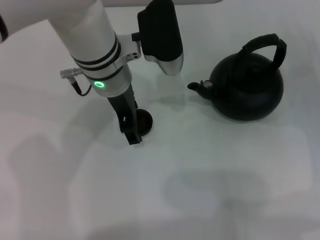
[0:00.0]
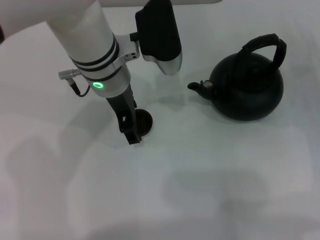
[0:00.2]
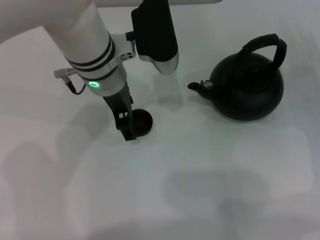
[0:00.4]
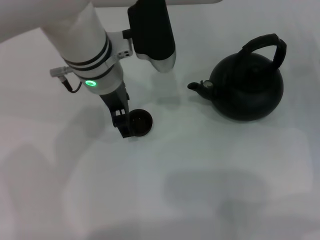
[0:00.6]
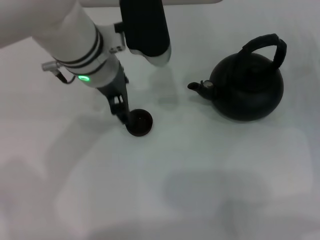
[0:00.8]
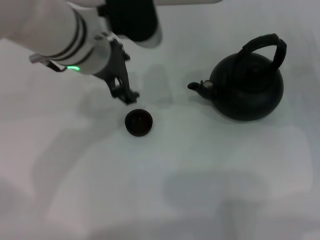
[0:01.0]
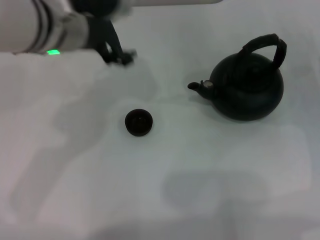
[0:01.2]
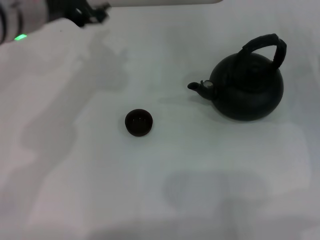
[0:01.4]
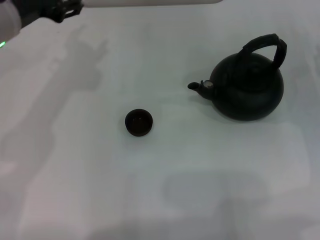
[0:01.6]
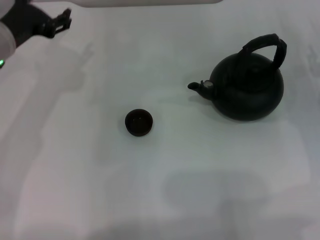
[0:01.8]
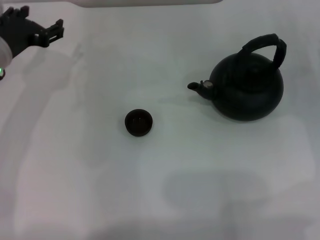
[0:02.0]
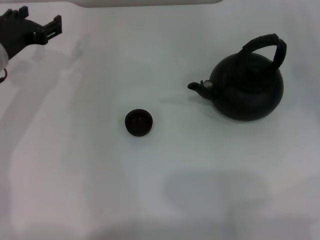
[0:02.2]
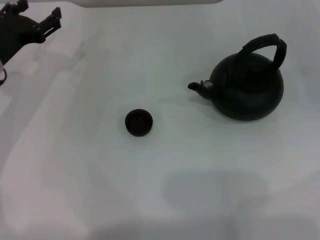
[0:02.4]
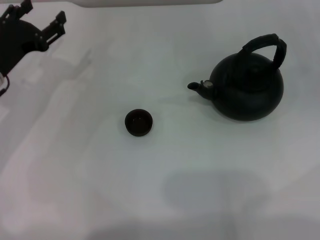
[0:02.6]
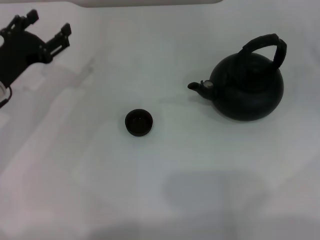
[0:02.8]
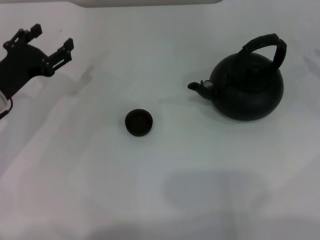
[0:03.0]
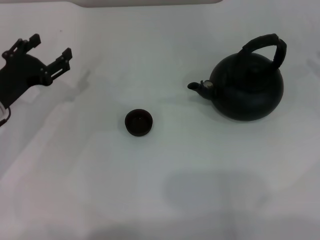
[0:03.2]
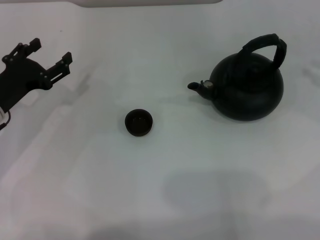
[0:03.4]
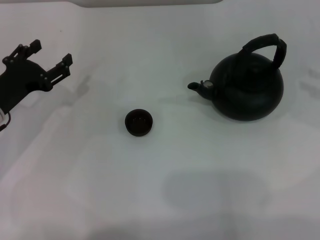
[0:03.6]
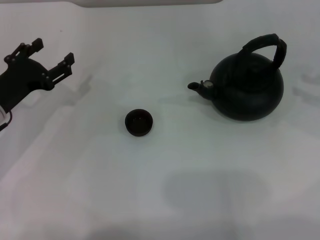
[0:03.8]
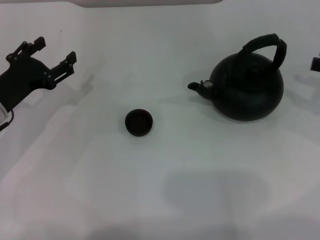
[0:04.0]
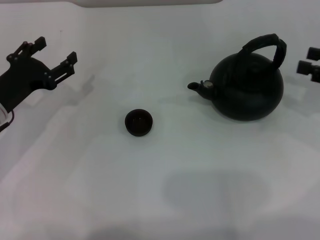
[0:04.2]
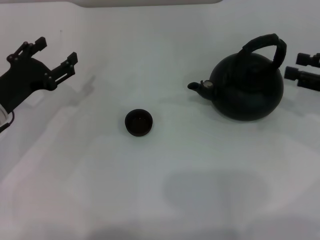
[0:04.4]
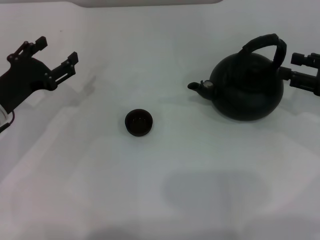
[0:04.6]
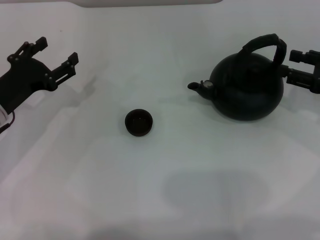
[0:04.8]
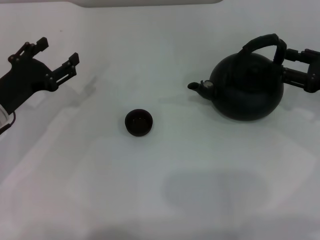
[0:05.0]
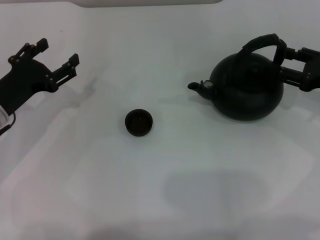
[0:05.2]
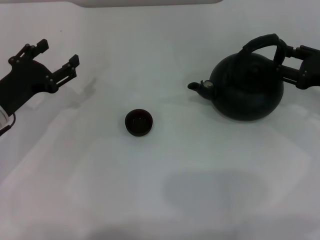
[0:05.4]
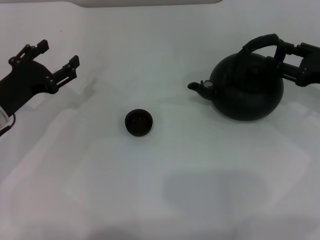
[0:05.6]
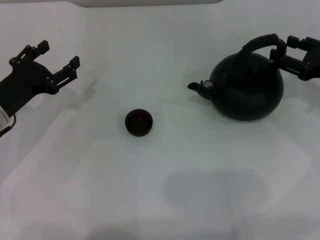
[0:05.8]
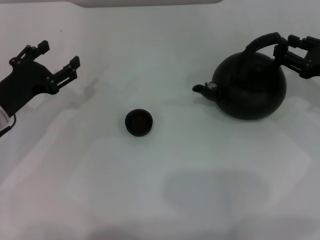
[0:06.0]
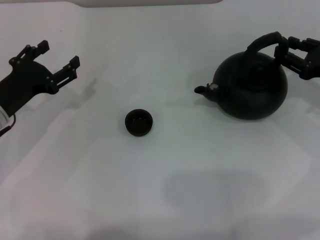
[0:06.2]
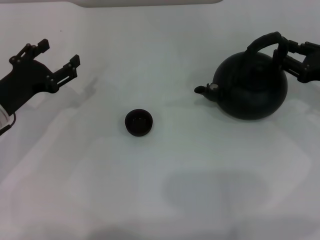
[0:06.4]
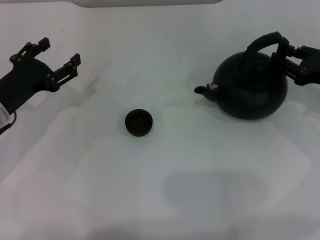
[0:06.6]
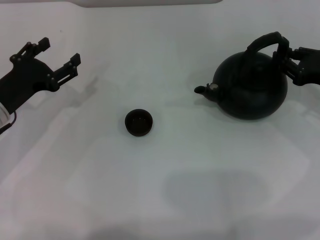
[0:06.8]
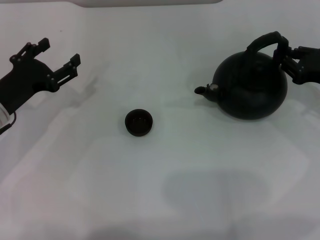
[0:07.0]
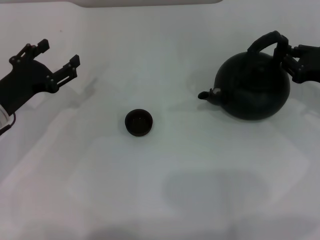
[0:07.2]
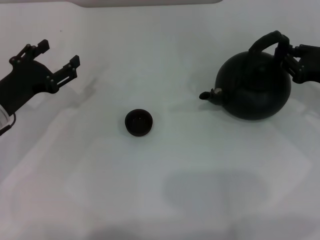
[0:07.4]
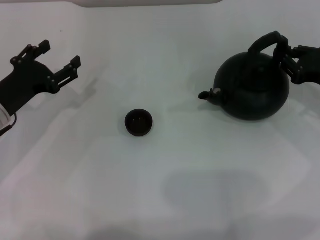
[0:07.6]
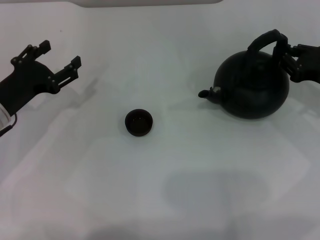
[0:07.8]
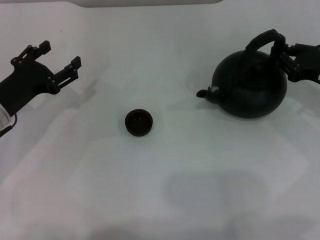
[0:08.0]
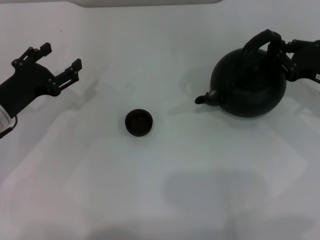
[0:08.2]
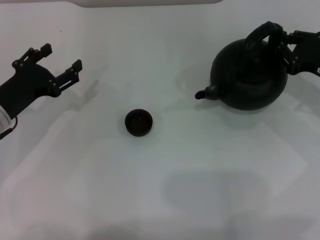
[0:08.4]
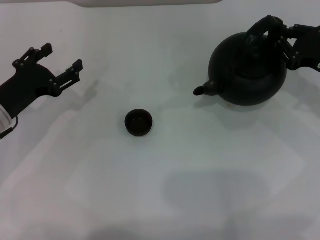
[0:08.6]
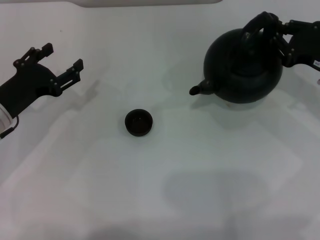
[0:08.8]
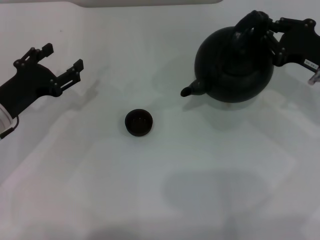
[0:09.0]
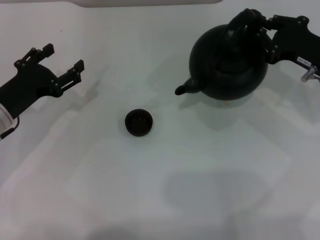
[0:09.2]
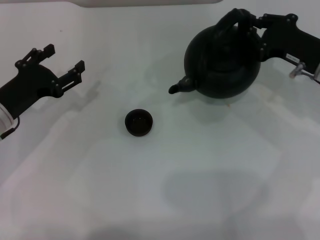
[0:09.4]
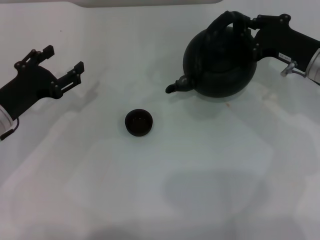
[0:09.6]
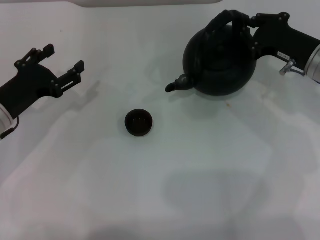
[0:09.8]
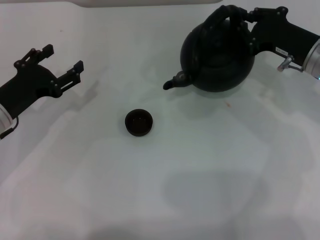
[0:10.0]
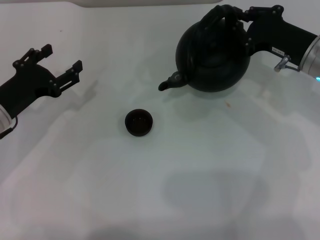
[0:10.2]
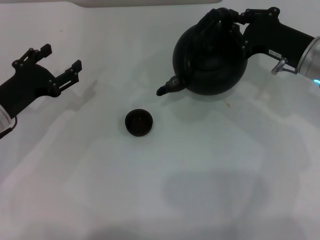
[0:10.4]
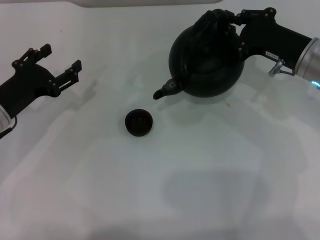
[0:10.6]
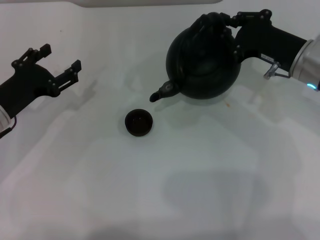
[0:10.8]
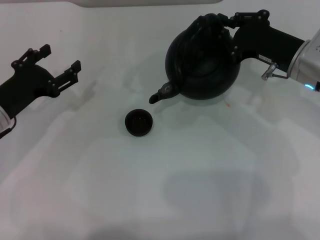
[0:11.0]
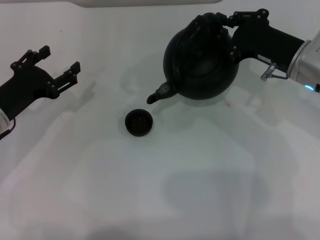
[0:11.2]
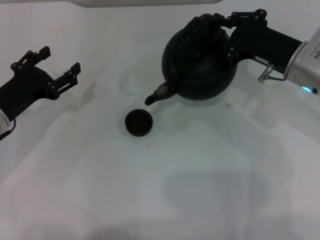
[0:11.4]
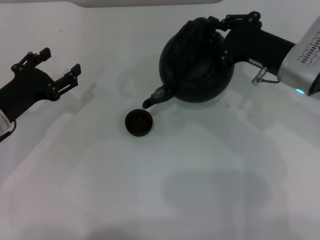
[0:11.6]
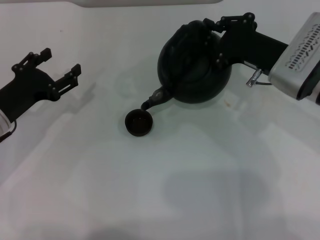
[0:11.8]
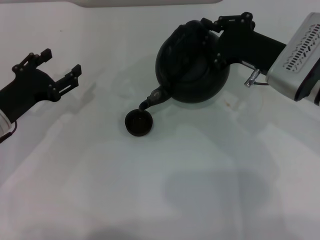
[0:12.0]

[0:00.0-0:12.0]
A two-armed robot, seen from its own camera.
Task of the whole recording: Grasp the handle of the teapot with one hand and pour tea into the teacup.
Step, 0:01.2 to 0:08.6: Pick up the teapot with the right gripper.
0:00.0 to 0:01.6: The left gripper goes some 15 cm to the left.
0:01.6 to 0:03.0: The left gripper is displaced downward and to the left by approximately 15 cm.
0:03.0 to 0:04.4: The right gripper changes place by approximately 5 cm.
0:04.4 to 0:06.0: The grippers stay close to where they were, moving slightly.
0:06.0 to 0:07.6: The right gripper closes.
0:07.6 to 0:09.0: The grippers stay close to where they were, moving slightly.
0:09.0 to 0:10.4: The right gripper changes place by some 5 cm.
0:10.4 to 0:12.0: The right gripper shifts by about 5 cm.

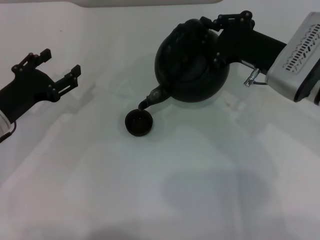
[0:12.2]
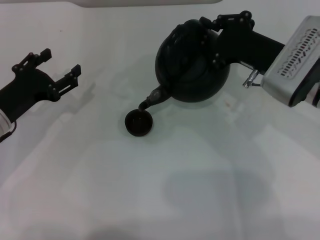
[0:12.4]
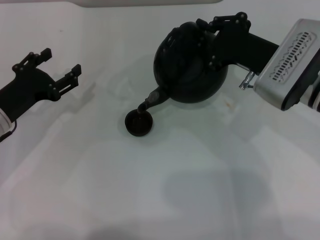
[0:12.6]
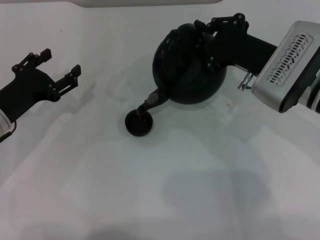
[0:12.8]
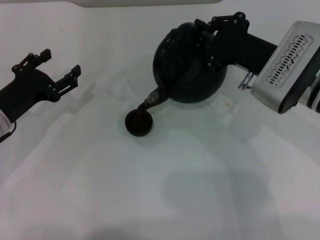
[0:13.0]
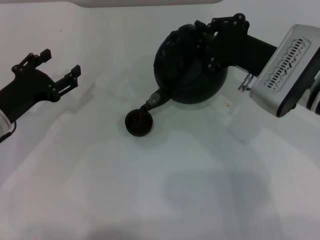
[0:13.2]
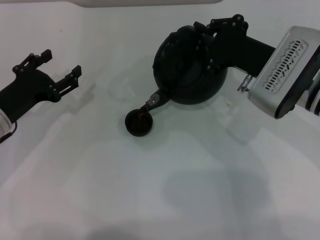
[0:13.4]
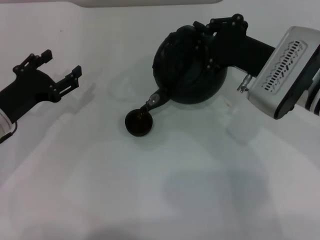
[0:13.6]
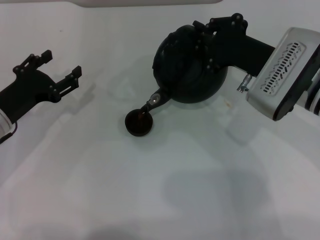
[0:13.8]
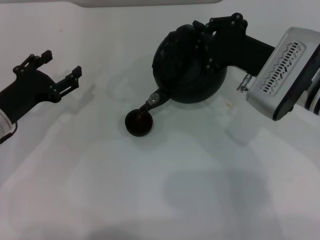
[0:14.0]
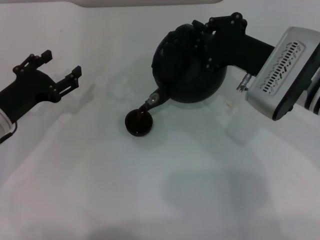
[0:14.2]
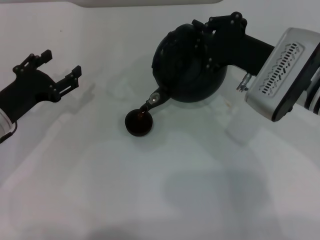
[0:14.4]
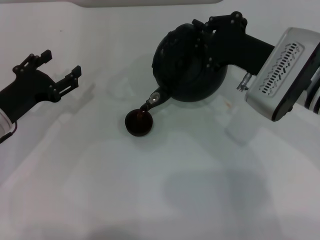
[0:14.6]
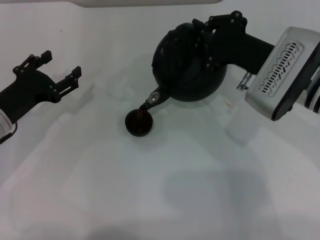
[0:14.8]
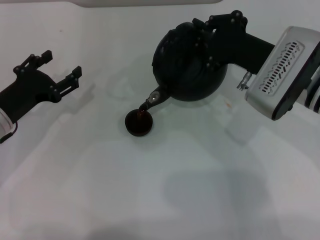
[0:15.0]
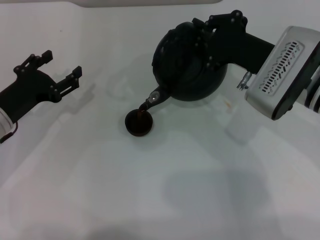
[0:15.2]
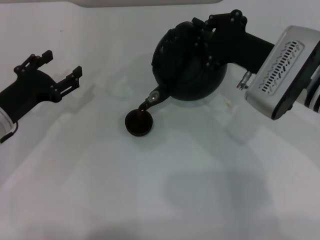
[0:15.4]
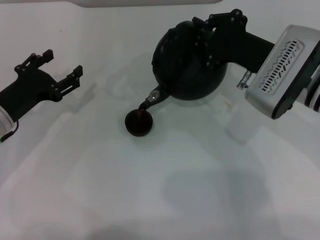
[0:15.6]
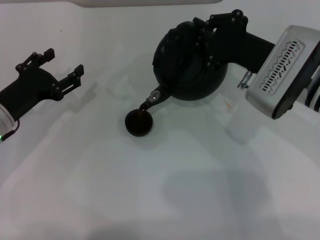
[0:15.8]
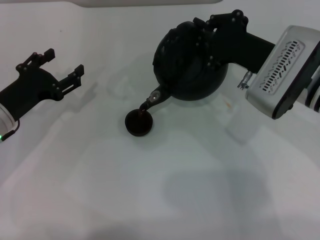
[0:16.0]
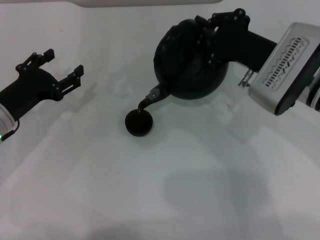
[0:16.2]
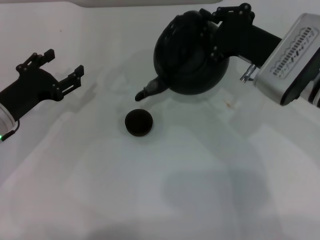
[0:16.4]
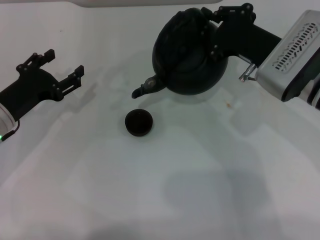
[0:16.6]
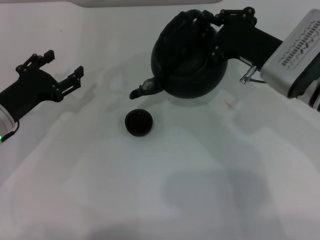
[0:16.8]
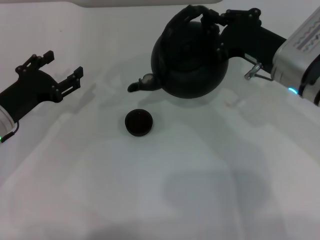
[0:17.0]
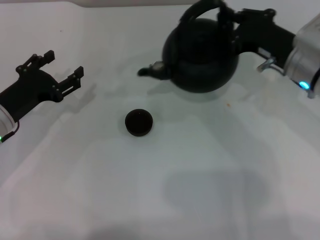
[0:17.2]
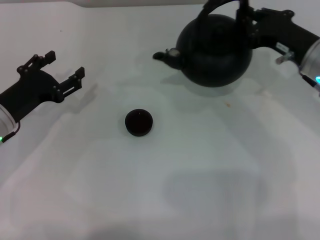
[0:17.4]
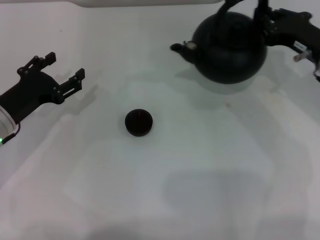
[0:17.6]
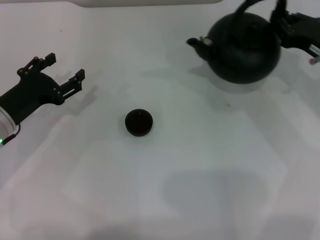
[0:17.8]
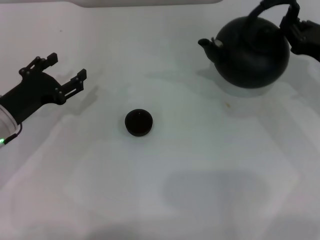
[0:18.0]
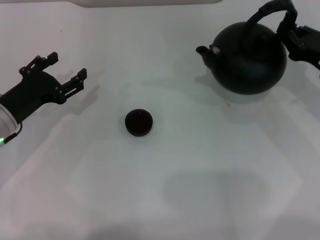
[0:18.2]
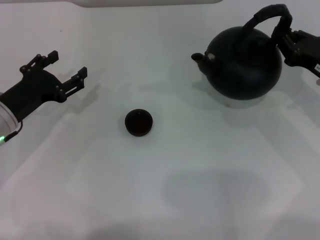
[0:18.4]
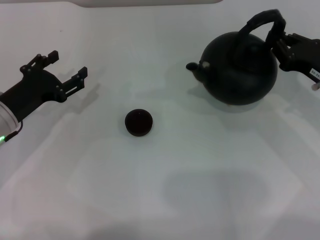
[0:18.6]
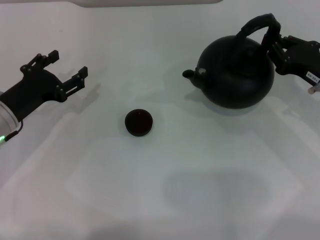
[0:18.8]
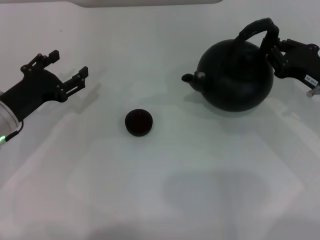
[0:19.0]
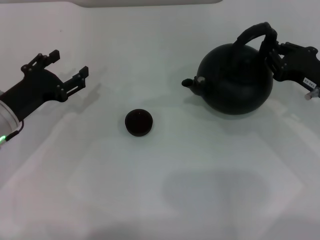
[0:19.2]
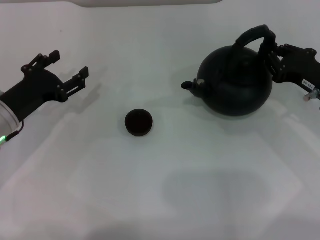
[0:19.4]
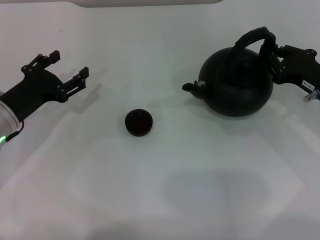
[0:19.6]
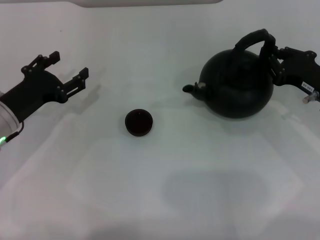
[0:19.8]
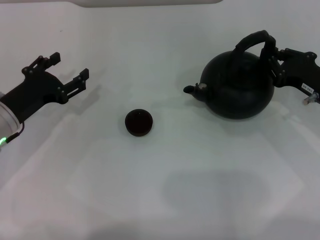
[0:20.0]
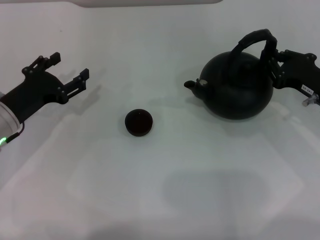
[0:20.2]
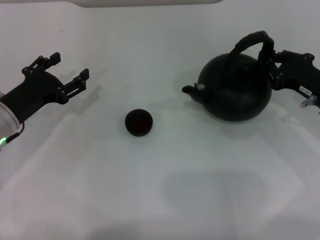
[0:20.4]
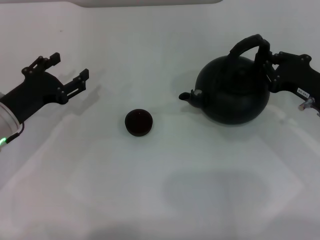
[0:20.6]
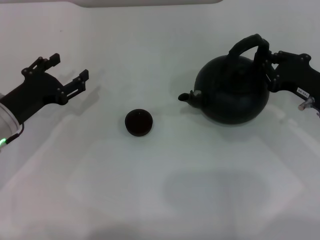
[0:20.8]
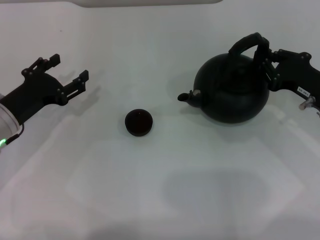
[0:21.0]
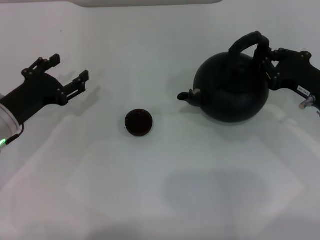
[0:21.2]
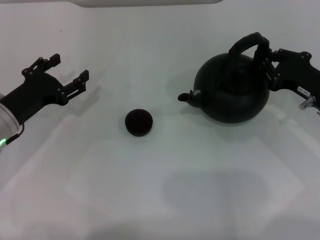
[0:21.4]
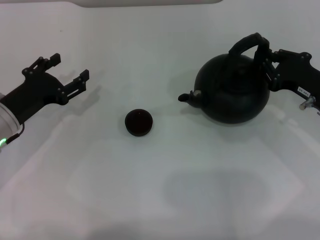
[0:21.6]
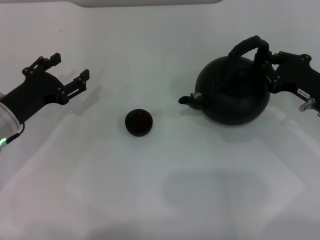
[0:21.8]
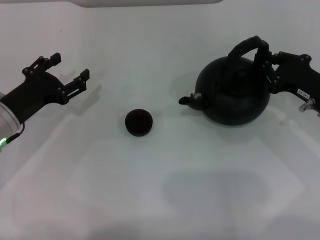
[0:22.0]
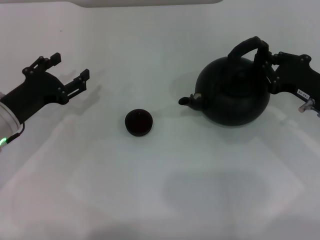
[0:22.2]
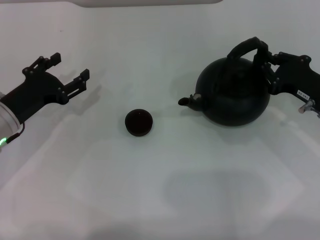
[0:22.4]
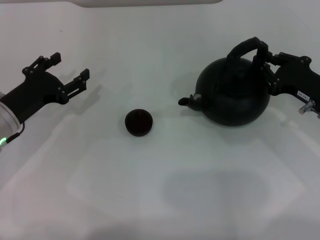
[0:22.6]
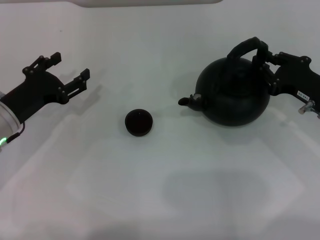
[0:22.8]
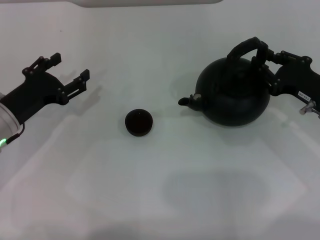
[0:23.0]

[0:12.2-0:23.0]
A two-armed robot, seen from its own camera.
Task of the whole recording: Grasp the handle of the teapot with one hand and pour tea into the teacup.
Step, 0:12.2 to 0:16.4: Pour tea into the teacup with the right gripper.
0:12.2 to 0:13.8: The grippers move only a little.
0:13.8 to 0:15.2: Both grippers stay put.
0:15.2 to 0:16.8: The grippers stay close to where they were, moving slightly.
0:16.8 to 0:18.4: The right gripper travels to the right by approximately 10 cm.
0:18.4 to 0:20.0: There are only small adjustments of the grippers.
0:20.0 to 0:21.4: Neither gripper changes place.
0:21.4 to 0:23.0: Neither gripper changes place.
